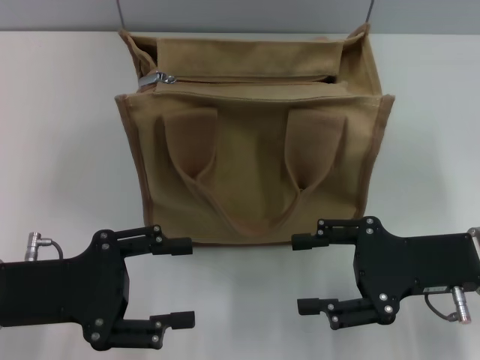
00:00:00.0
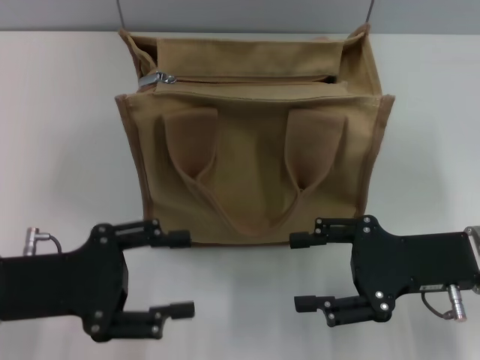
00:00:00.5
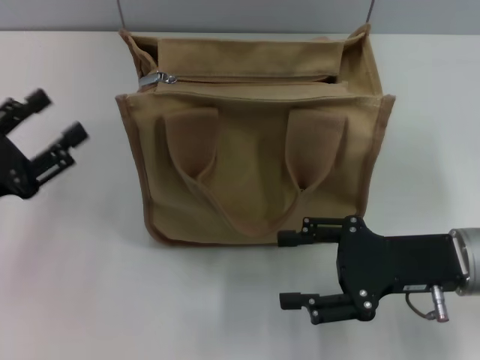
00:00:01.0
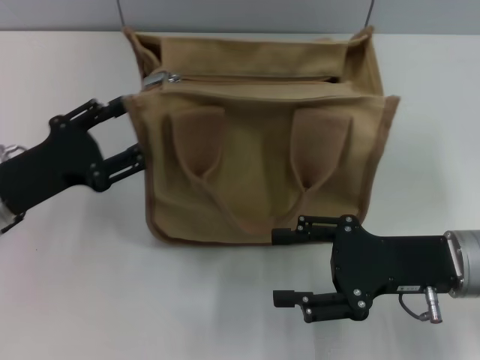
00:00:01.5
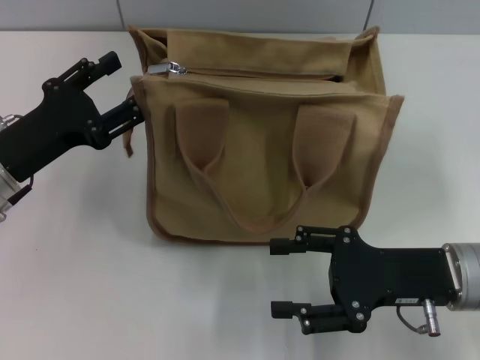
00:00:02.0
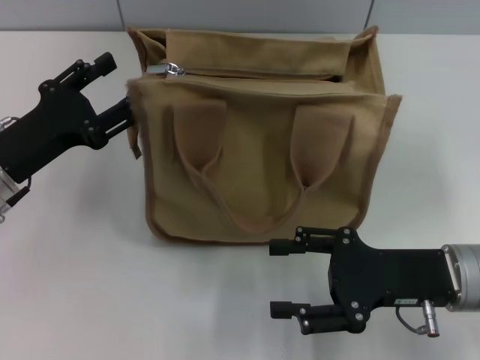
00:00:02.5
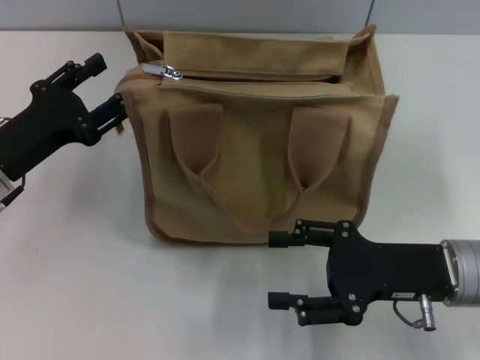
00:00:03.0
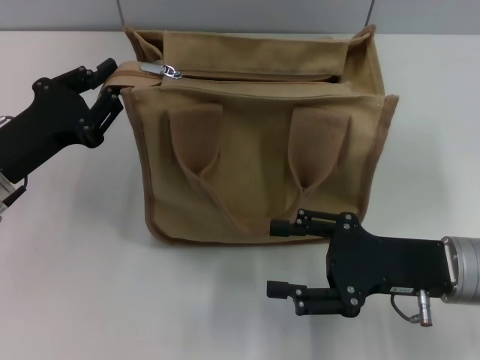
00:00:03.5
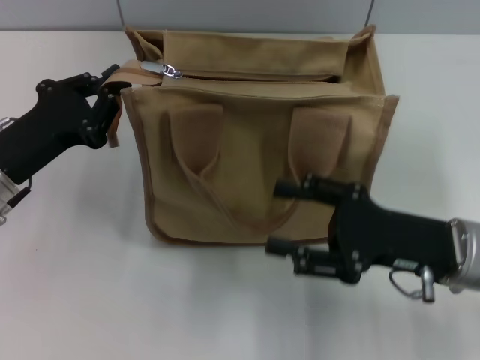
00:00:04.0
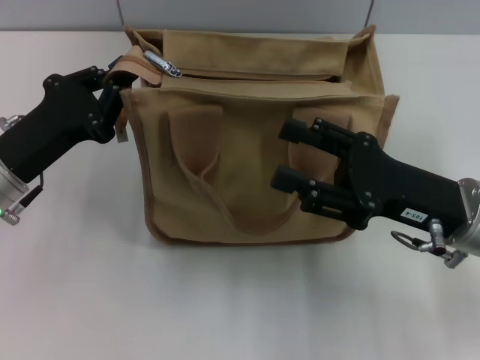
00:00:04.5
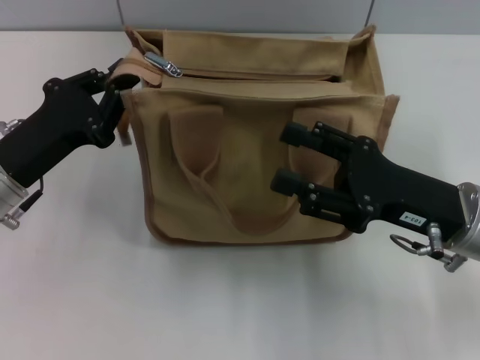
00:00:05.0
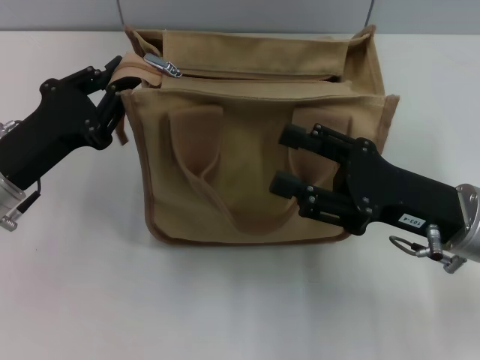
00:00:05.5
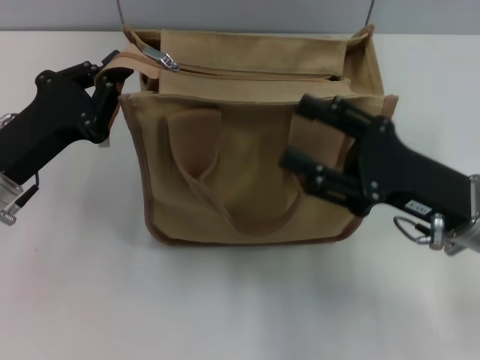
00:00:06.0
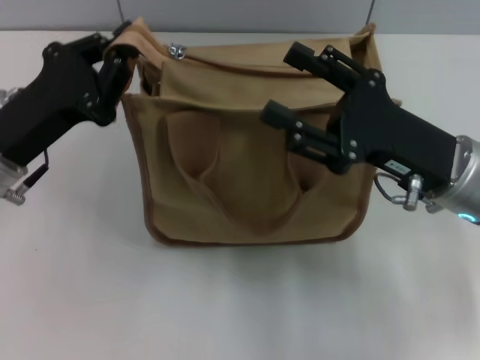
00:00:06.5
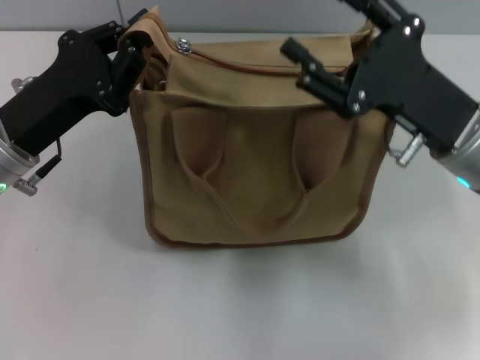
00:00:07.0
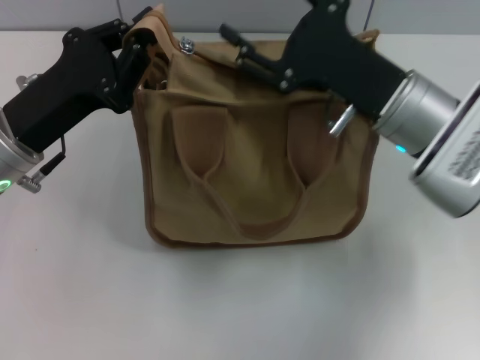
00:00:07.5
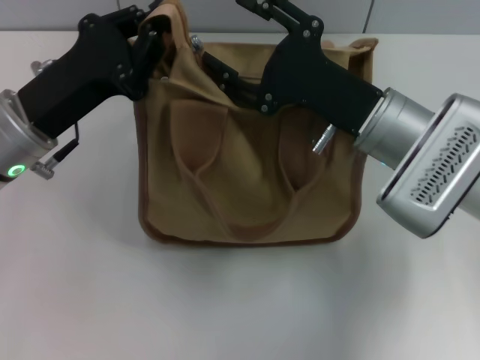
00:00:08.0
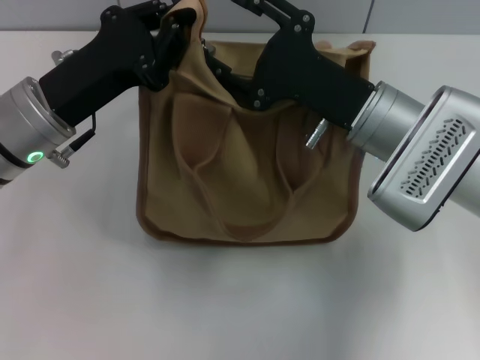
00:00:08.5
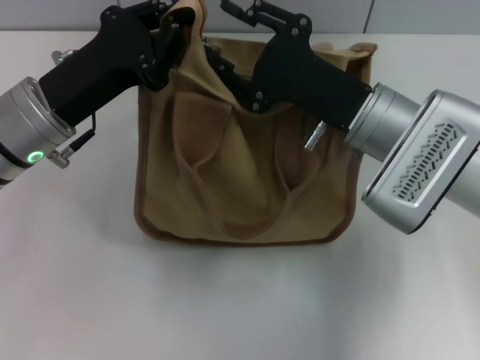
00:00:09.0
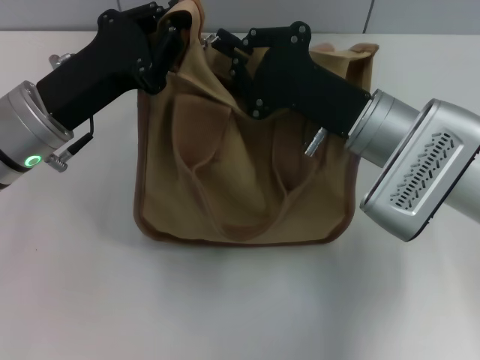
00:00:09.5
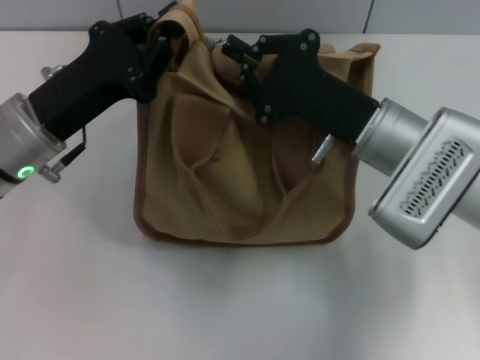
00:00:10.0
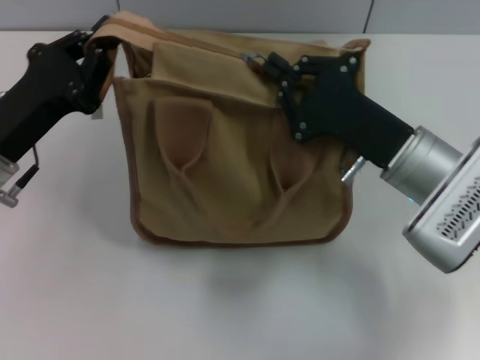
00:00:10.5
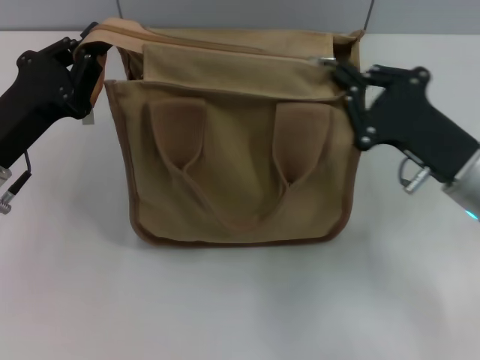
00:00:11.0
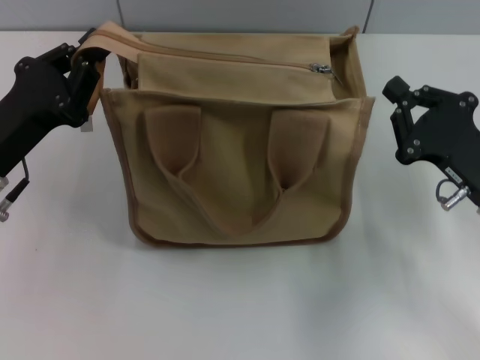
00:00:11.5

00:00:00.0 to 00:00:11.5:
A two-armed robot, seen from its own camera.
Step, 00:00:00.0 to 00:00:11.0: Pull up the zipper with your right hand.
00:00:00.0 to 00:00:02.0: The left gripper shifts about 10 cm forward.
00:00:02.0 to 00:00:04.0: The left gripper closes its fingers.
00:00:06.0 to 00:00:07.5: The right gripper travels forward and to the left by roughly 10 cm.
00:00:07.5 to 00:00:09.5: The right gripper closes.
00:00:09.5 to 00:00:11.5: The left gripper heads to the left, covering about 5 cm; the right gripper is displaced to the right and backward by about 15 cm.

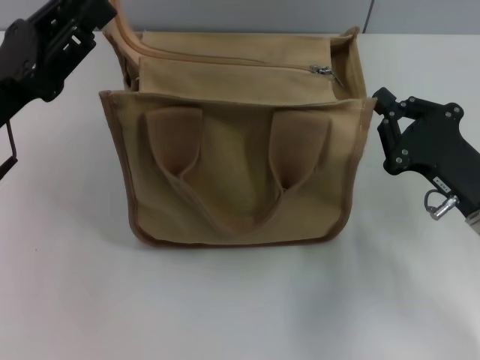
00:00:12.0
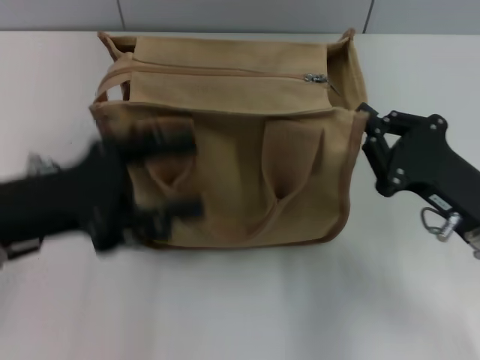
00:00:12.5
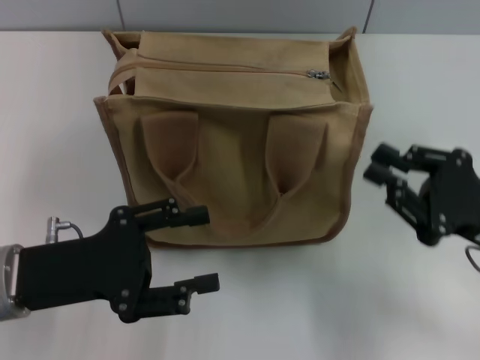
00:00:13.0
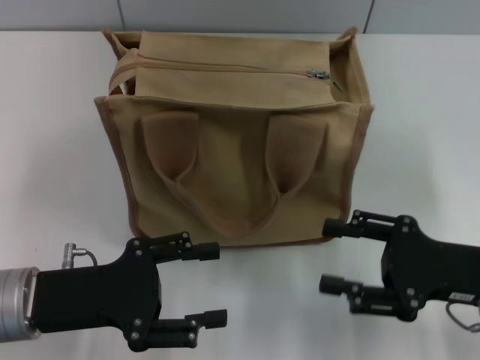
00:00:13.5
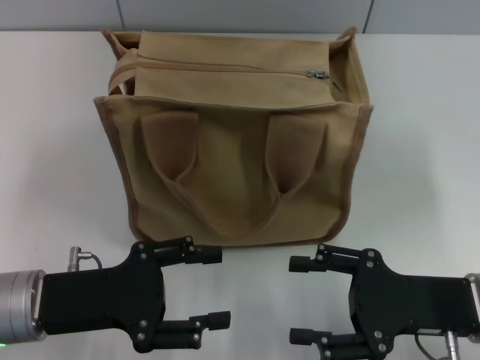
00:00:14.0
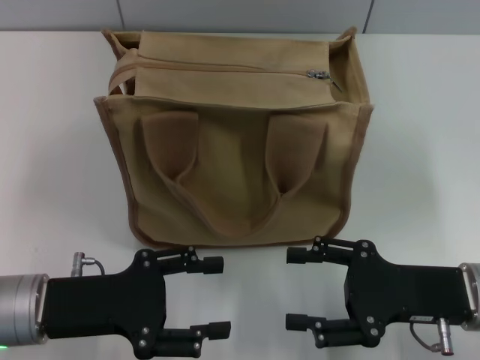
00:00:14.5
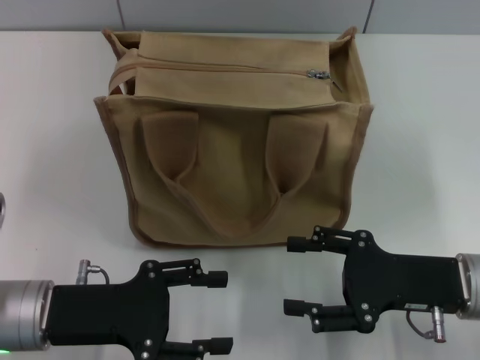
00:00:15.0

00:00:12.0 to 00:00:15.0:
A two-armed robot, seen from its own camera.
00:00:12.0 to 00:00:13.5: The left gripper moves backward and downward, some 10 cm, and opens, while the right gripper opens up.
00:00:13.5 to 00:00:15.0: There are only small adjustments of the grippers.
